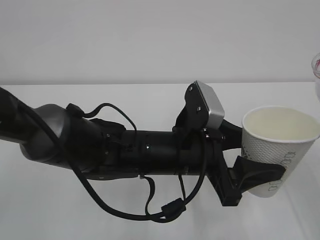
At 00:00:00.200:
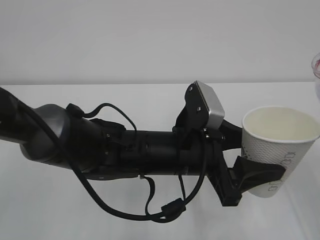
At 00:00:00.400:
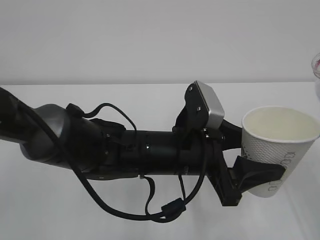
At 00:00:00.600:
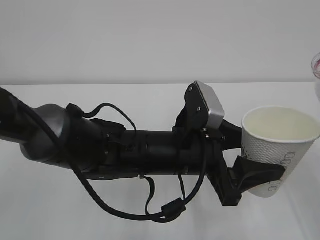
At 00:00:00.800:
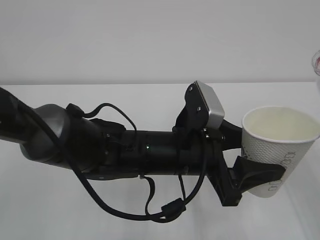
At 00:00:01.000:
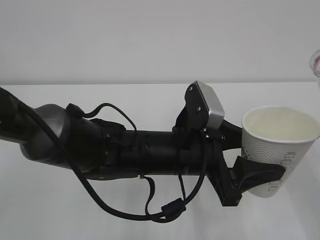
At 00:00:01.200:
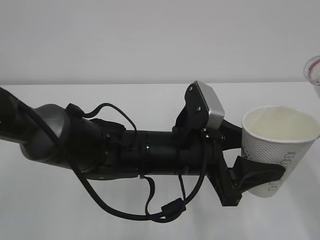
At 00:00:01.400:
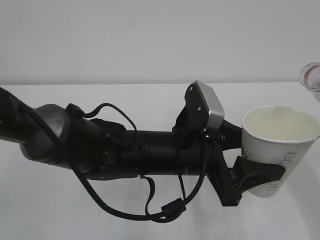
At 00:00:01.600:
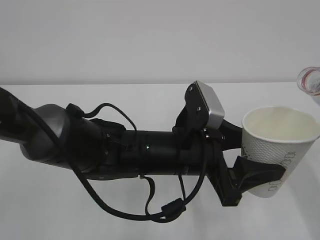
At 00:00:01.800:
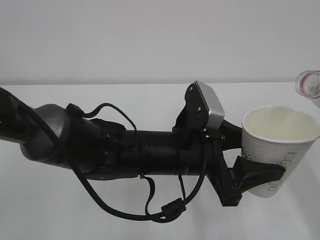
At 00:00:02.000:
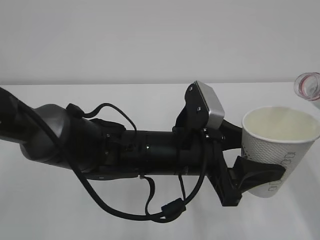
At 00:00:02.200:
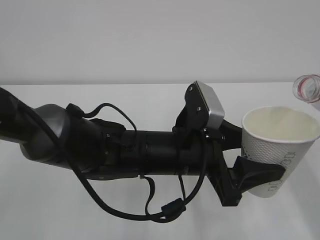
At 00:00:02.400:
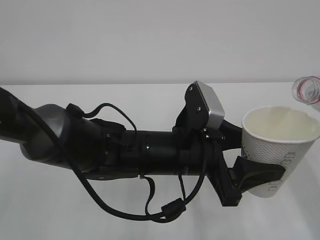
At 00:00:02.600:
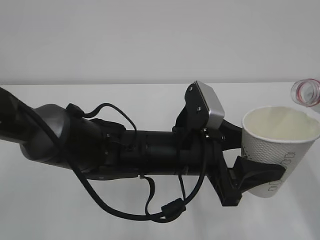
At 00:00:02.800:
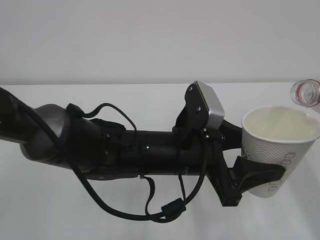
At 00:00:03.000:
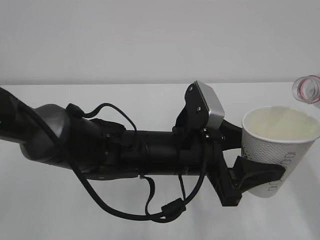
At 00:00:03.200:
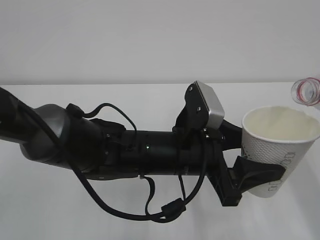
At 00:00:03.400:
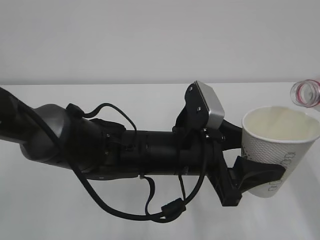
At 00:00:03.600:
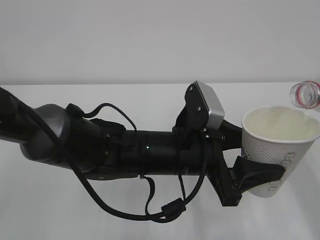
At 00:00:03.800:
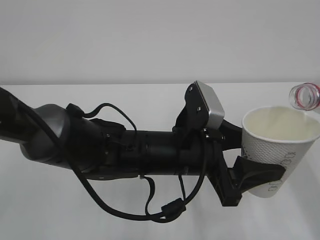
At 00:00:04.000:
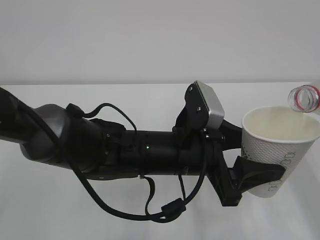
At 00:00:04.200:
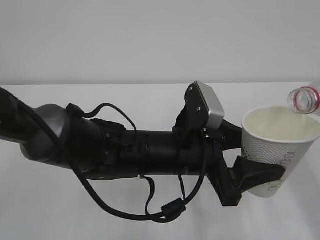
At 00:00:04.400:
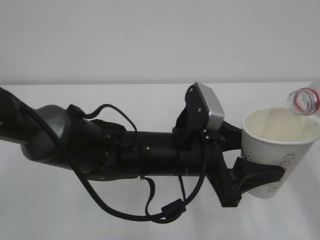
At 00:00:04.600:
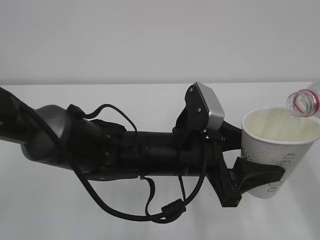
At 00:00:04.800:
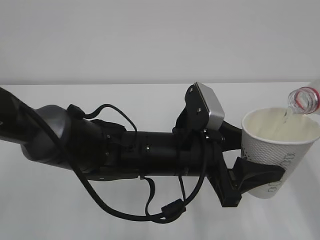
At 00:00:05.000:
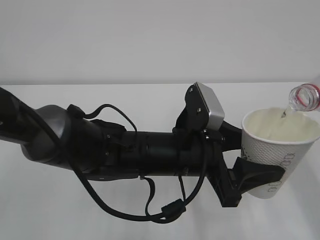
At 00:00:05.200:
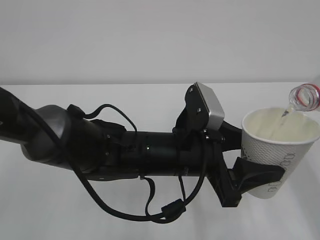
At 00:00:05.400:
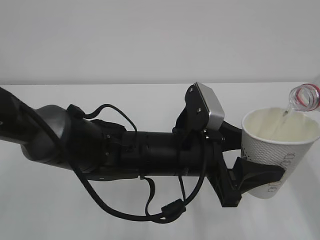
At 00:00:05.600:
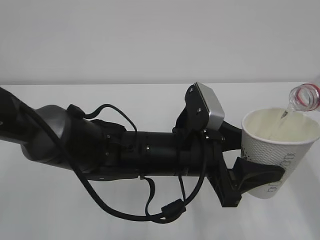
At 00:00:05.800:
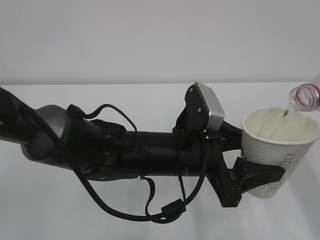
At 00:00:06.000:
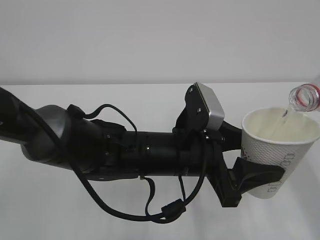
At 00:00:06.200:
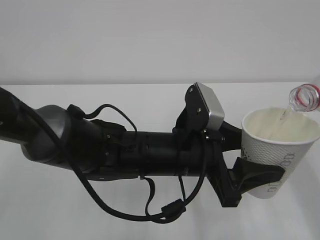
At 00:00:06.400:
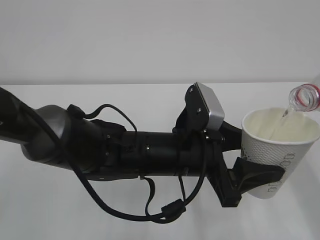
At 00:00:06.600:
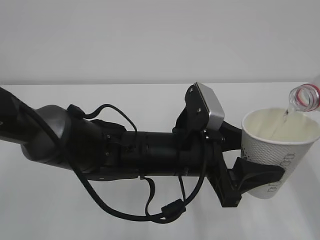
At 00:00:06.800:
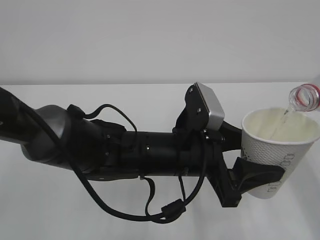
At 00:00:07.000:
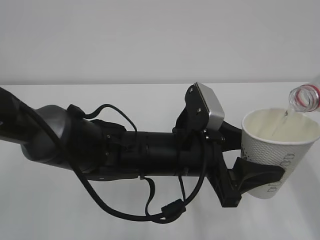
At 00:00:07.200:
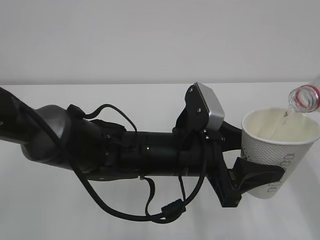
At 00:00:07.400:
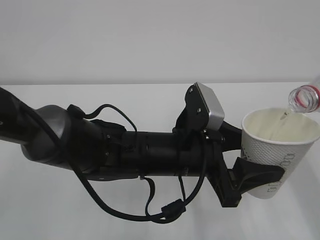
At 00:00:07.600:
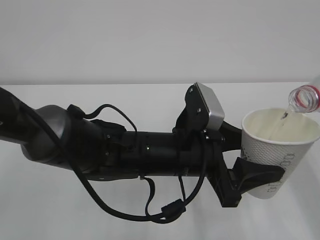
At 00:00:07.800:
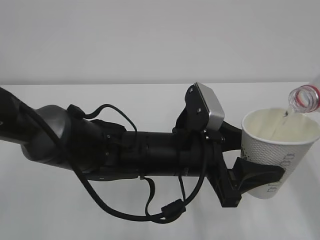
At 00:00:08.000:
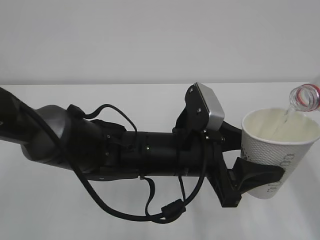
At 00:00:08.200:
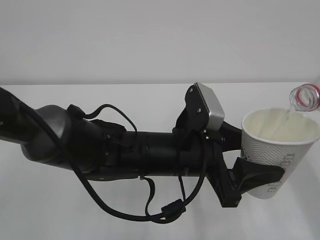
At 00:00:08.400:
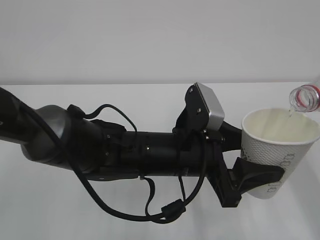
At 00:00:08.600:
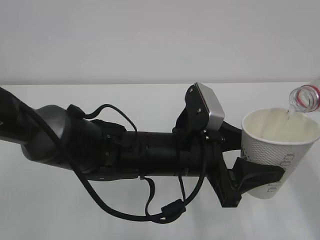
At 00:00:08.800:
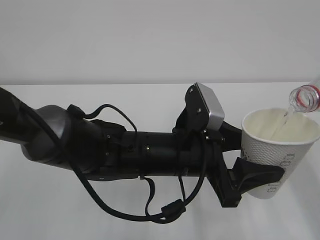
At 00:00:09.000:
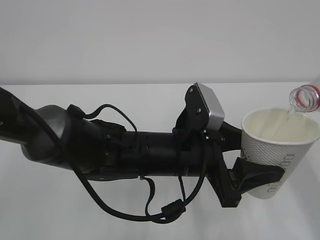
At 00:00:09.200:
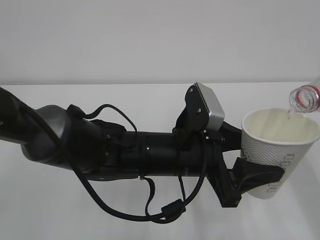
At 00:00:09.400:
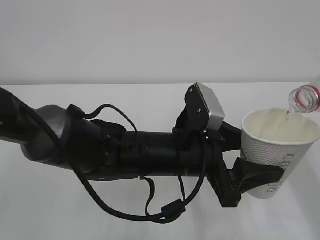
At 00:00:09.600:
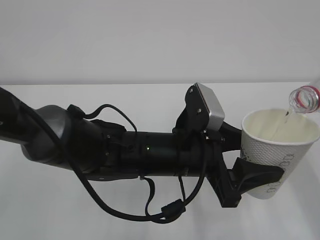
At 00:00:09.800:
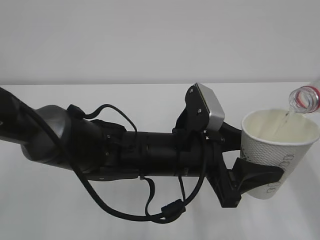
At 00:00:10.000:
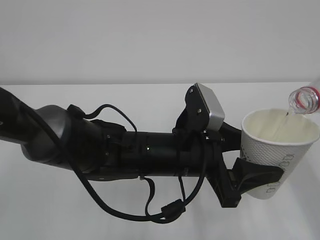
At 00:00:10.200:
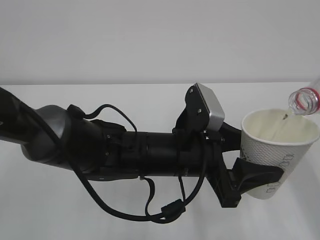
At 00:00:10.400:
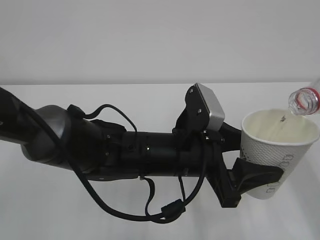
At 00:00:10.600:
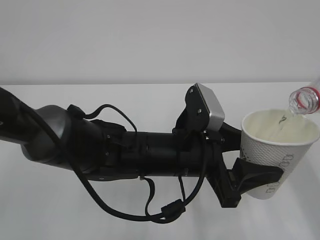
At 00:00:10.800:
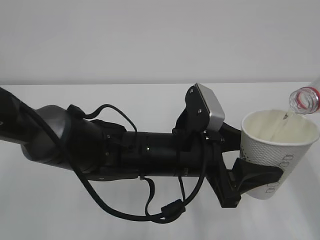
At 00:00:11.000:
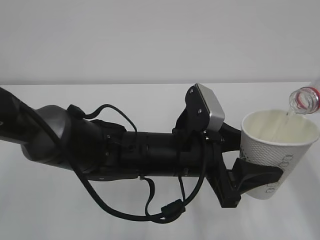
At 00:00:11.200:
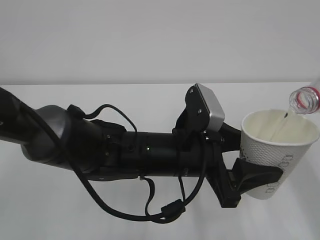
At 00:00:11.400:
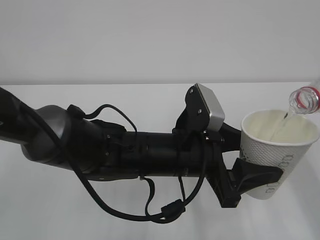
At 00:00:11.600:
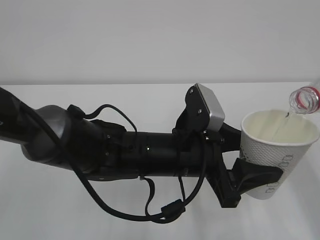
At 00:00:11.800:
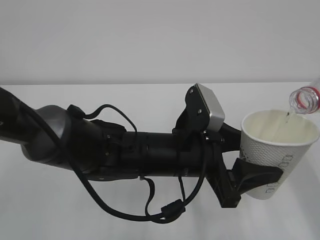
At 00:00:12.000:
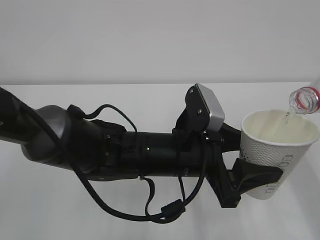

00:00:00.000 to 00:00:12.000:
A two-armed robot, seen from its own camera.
00:00:03.000 to 00:00:04.400: The grippers stay close to where they were, moving slightly.
00:00:04.400 to 00:00:09.000: Neither gripper changes place.
00:00:09.000 to 00:00:12.000: Both grippers stay put.

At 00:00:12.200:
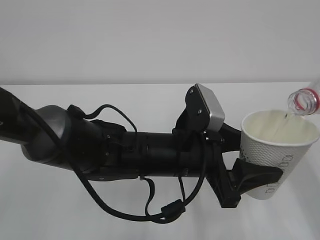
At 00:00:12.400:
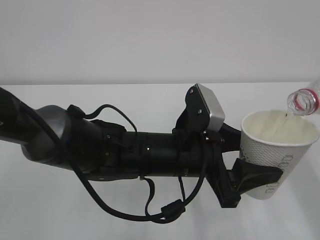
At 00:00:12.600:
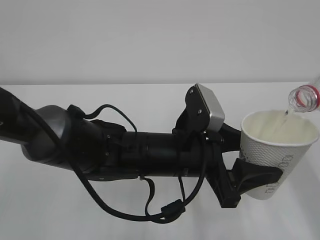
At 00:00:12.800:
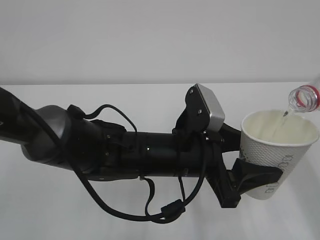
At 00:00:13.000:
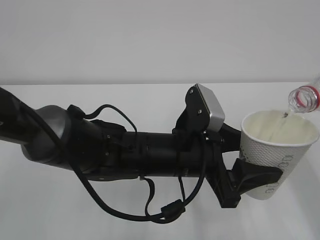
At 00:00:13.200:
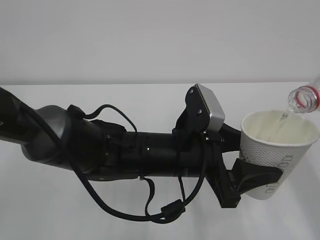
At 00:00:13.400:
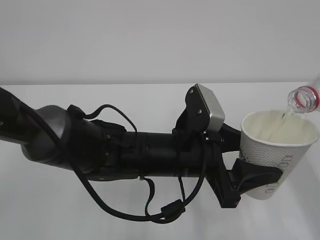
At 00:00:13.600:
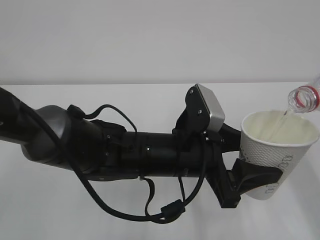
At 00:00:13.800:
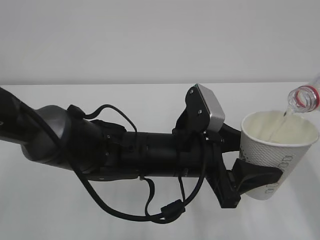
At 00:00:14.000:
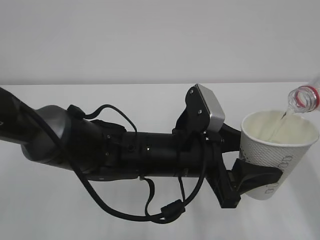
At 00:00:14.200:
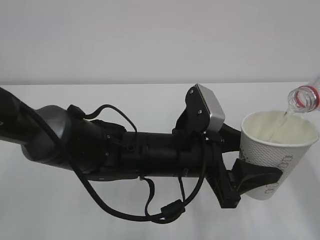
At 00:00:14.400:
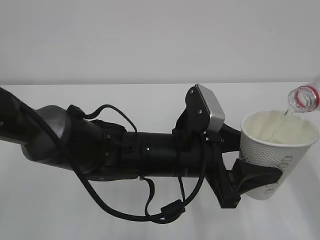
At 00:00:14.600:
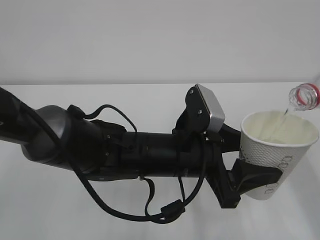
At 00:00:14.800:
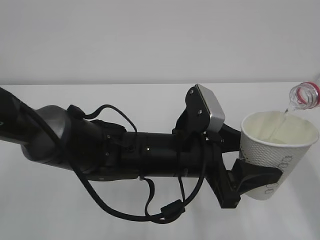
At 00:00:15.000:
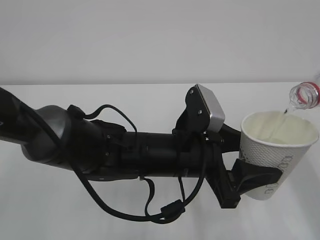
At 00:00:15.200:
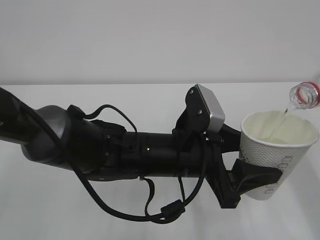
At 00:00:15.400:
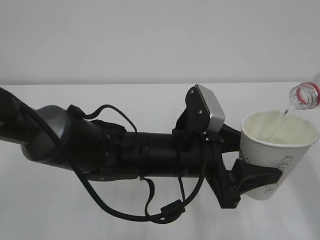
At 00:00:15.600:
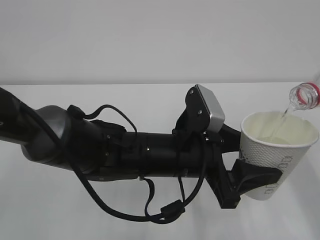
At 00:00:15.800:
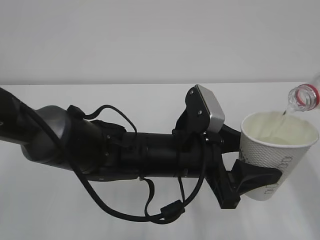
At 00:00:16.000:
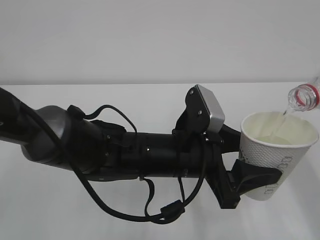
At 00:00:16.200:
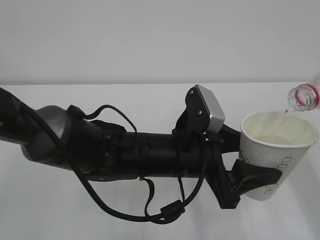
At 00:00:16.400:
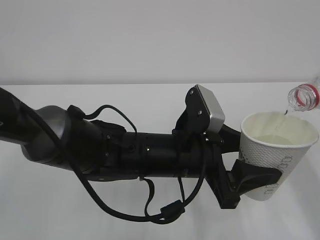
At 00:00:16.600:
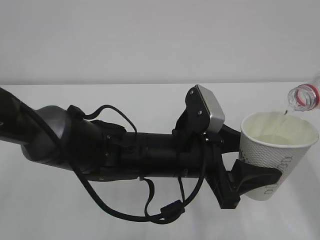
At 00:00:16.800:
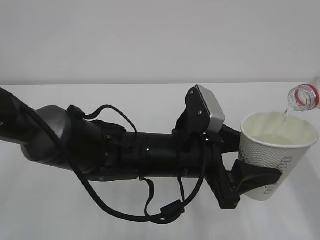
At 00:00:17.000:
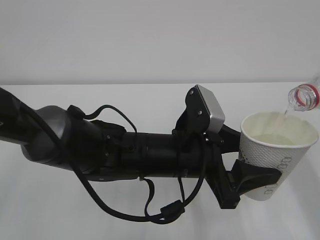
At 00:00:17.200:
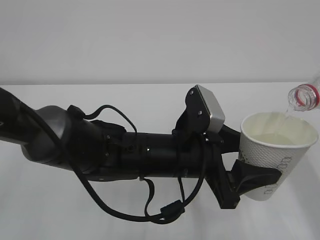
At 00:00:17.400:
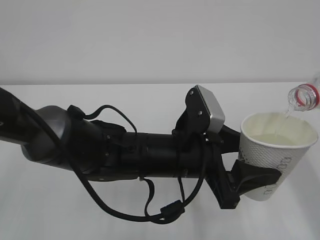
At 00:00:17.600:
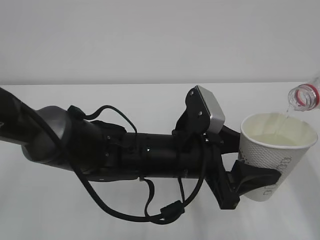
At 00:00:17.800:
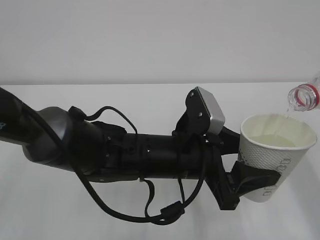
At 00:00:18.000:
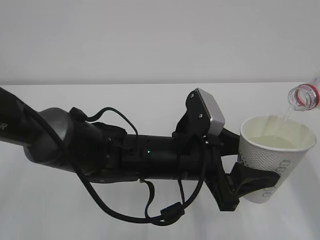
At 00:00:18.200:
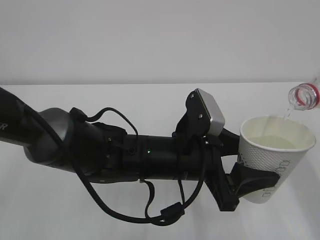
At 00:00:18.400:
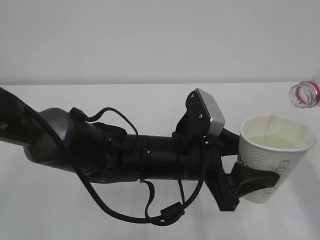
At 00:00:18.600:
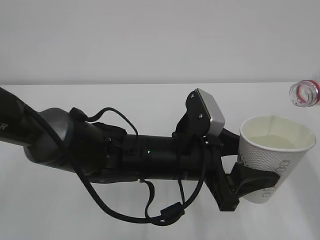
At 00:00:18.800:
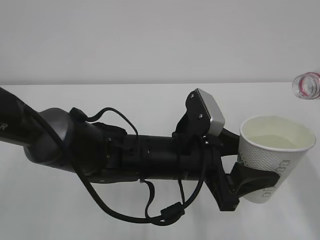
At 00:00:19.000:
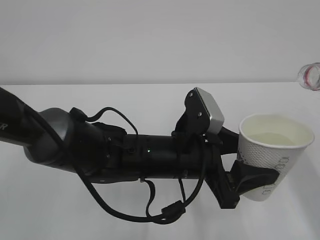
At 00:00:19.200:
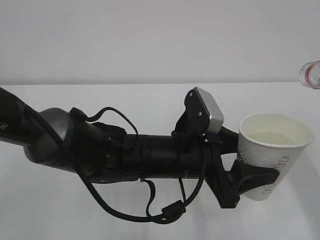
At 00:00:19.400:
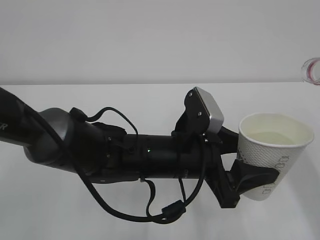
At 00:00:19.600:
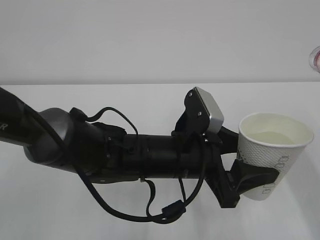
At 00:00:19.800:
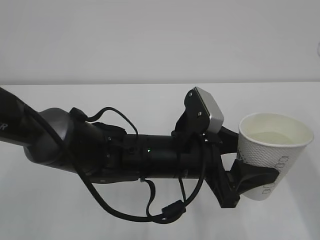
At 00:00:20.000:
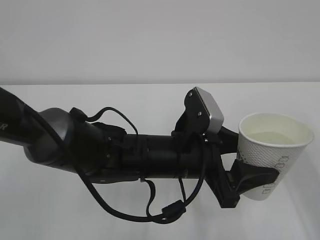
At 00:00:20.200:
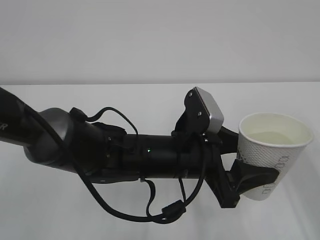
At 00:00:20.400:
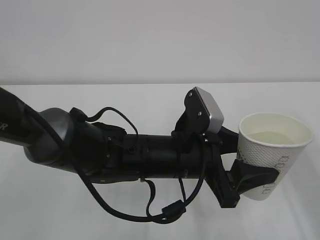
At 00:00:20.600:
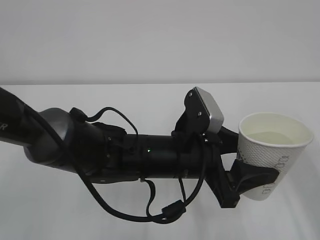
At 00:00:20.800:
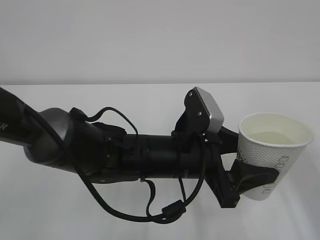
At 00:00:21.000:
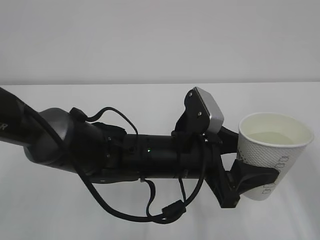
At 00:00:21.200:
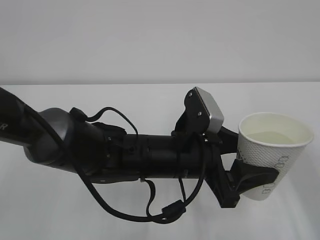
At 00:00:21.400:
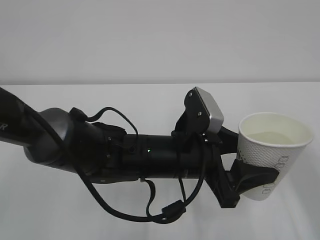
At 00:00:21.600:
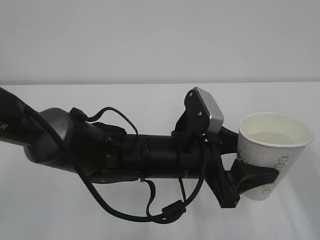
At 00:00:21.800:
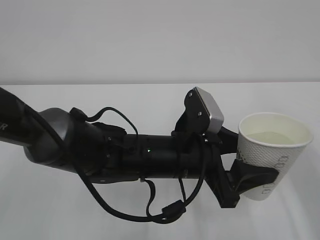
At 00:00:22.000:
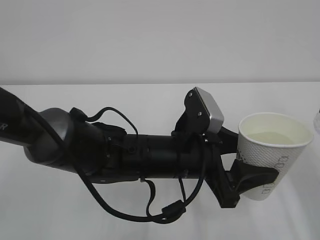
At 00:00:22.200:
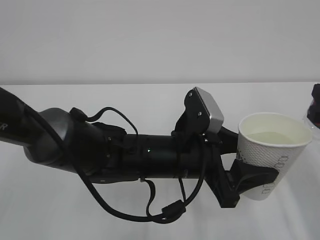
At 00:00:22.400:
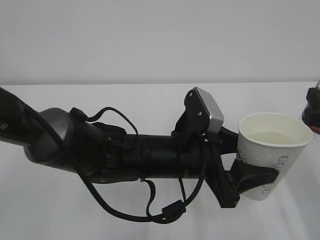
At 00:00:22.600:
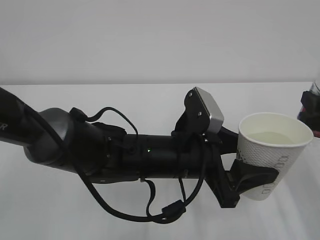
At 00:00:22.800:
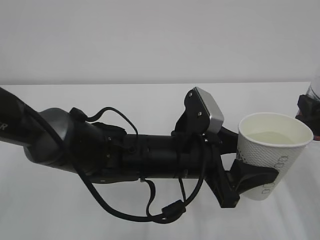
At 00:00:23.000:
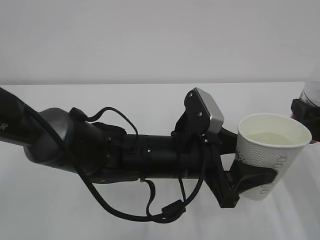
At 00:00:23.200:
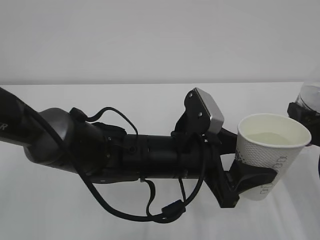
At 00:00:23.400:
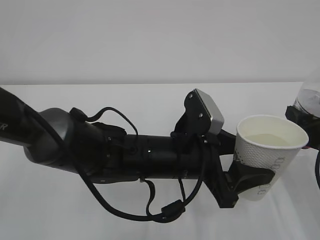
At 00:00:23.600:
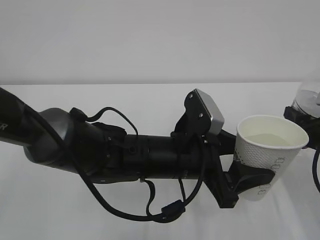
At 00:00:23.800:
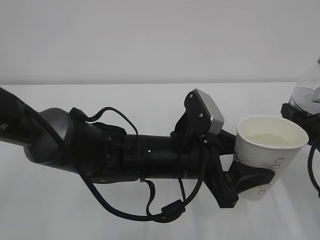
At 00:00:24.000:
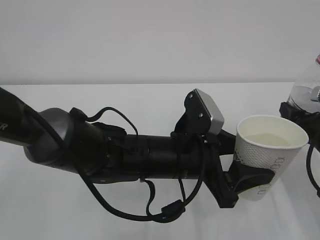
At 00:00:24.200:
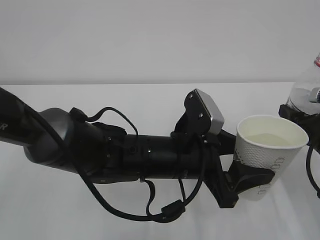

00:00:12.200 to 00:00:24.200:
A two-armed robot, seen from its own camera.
00:00:12.200 to 00:00:18.200: Both grippers stay about where they are.
00:00:21.200 to 00:00:22.600: The right gripper heads downward, covering about 5 cm.
00:00:22.600 to 00:00:24.200: The right gripper is displaced downward by some 5 cm.
